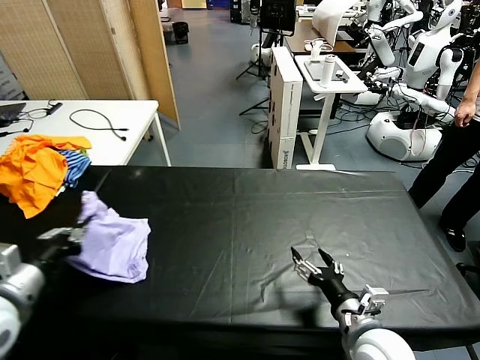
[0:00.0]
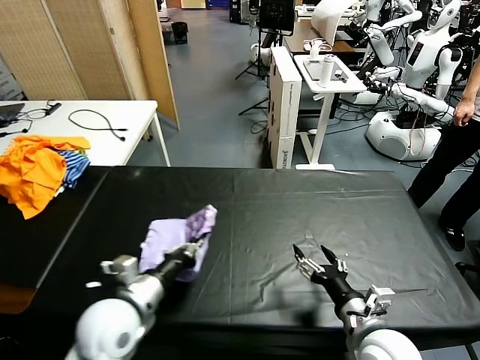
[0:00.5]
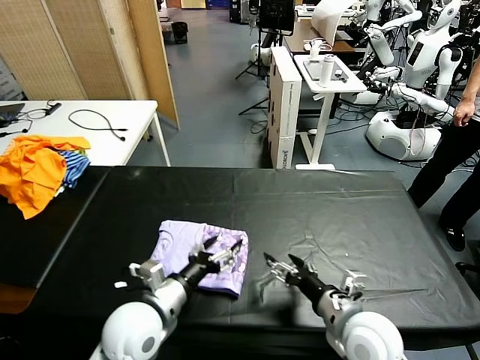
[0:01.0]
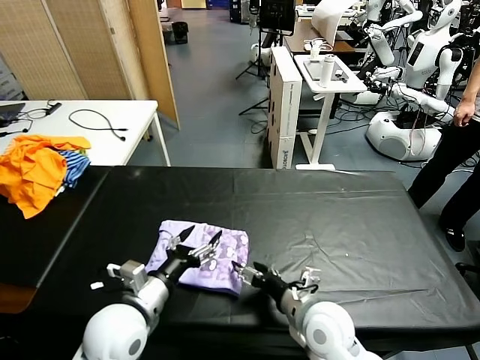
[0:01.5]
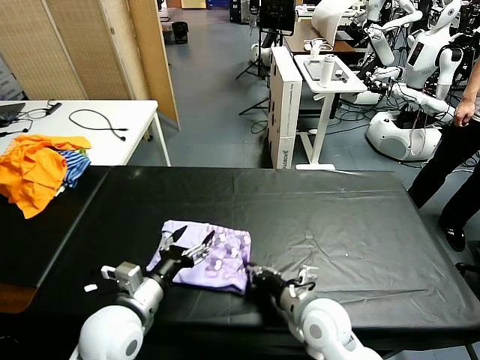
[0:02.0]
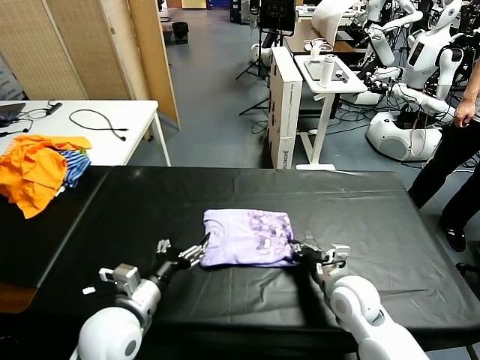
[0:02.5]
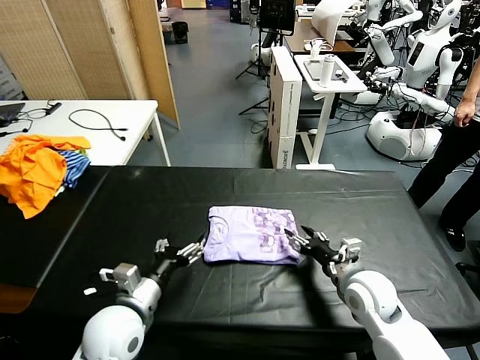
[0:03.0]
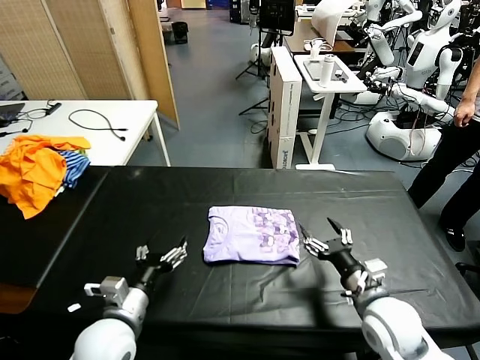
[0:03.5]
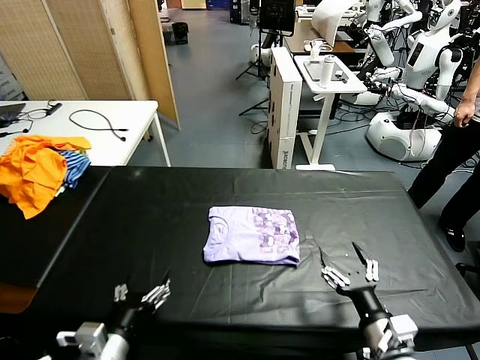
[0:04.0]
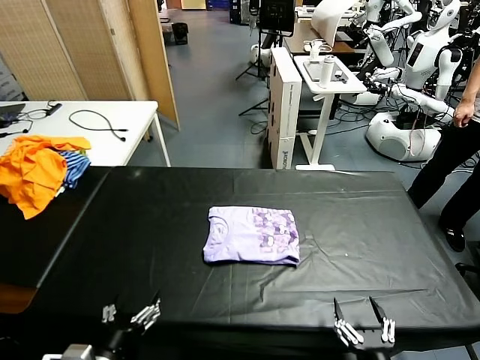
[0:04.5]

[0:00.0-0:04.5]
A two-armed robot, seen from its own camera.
Task of the whole recording: fold and organize the clothes.
Step, 0:01.5 to 0:03.0: Drag the clothes to the center of the table.
0:00.0 to 0:02.0: The left gripper shifts roughly 20 cm to the right and downward, and opens up, while the right gripper moves to the left and forward, approximately 10 cm, and closes its fingers.
0:02.0 to 0:04.5: The right gripper moves backward and to the right, about 25 cm, and opens; the left gripper moves backward, some 15 cm.
